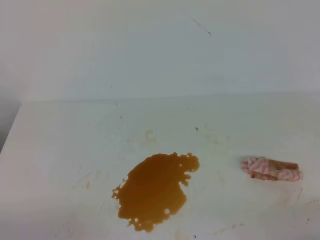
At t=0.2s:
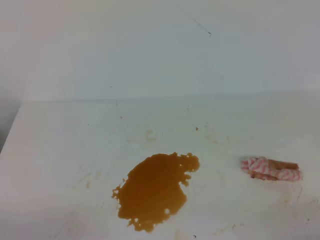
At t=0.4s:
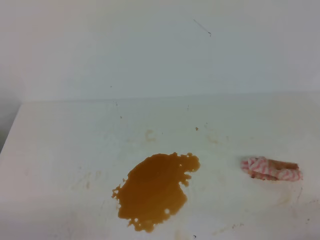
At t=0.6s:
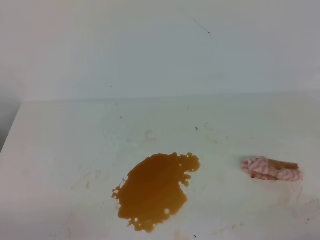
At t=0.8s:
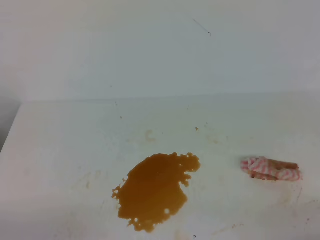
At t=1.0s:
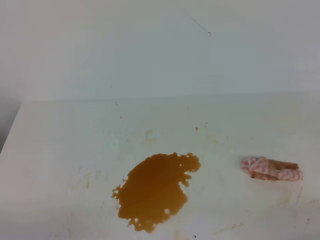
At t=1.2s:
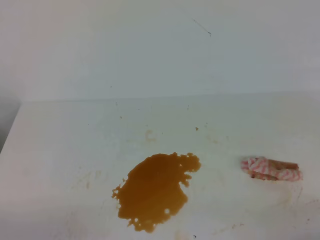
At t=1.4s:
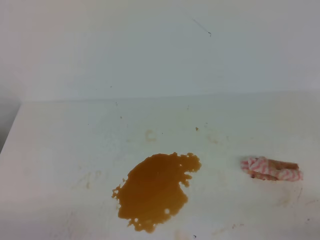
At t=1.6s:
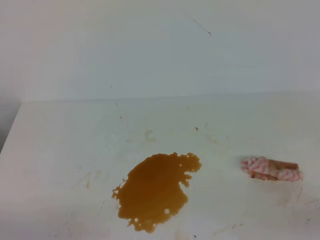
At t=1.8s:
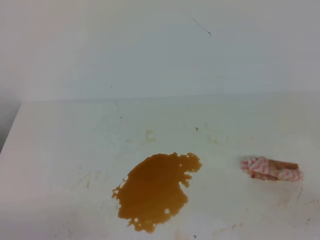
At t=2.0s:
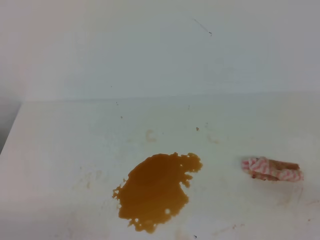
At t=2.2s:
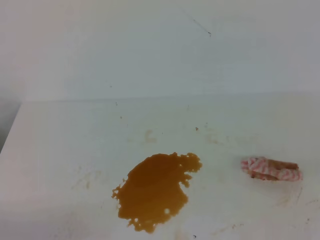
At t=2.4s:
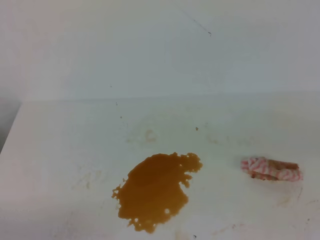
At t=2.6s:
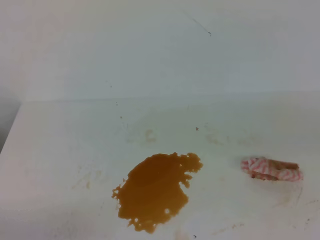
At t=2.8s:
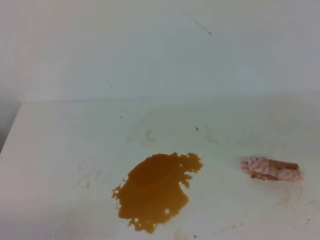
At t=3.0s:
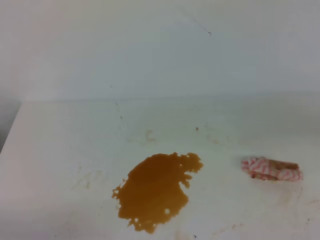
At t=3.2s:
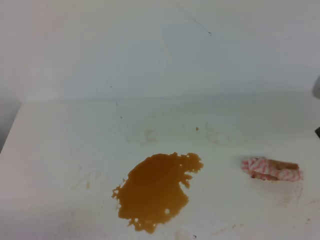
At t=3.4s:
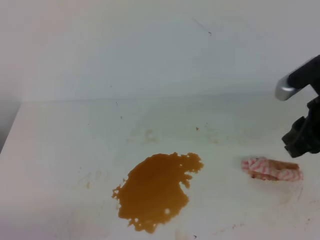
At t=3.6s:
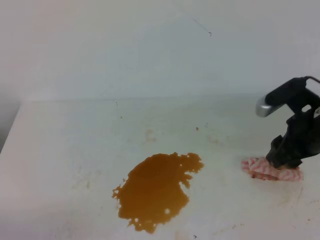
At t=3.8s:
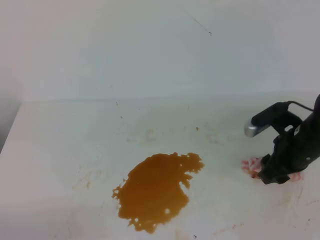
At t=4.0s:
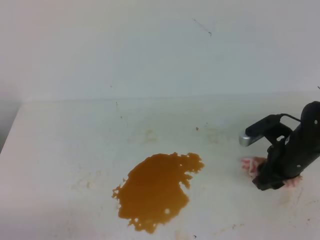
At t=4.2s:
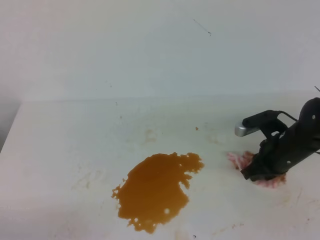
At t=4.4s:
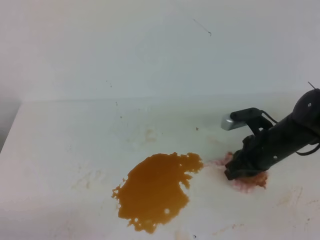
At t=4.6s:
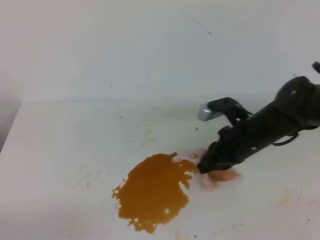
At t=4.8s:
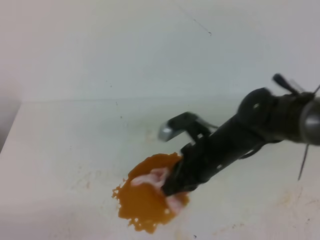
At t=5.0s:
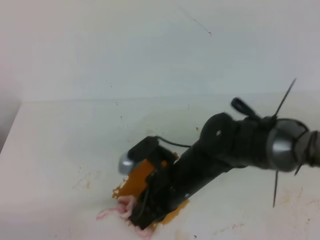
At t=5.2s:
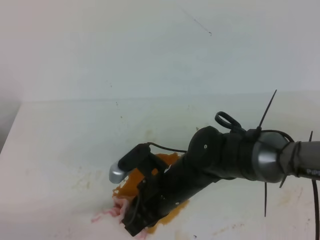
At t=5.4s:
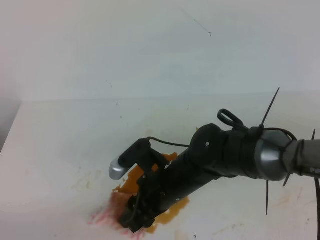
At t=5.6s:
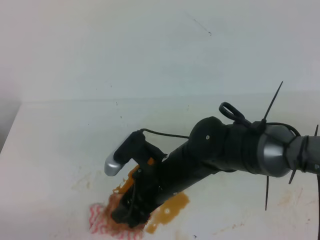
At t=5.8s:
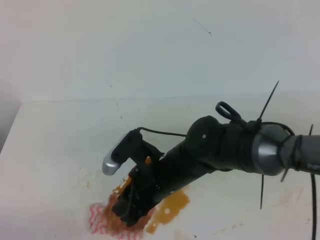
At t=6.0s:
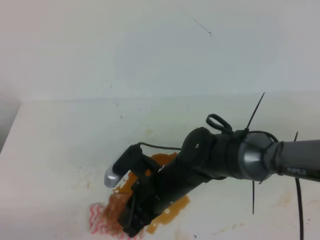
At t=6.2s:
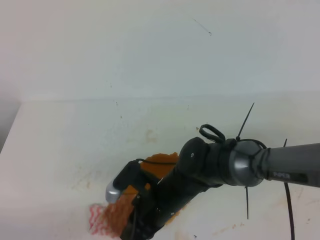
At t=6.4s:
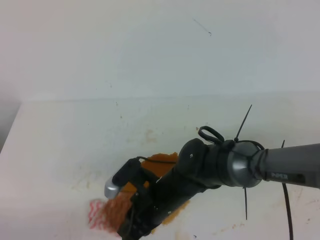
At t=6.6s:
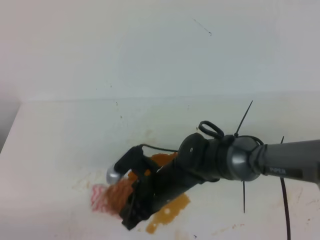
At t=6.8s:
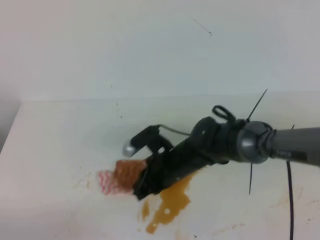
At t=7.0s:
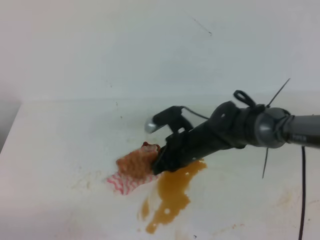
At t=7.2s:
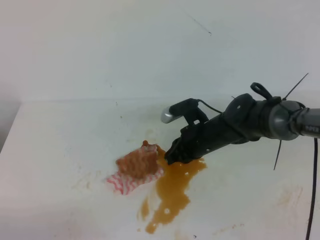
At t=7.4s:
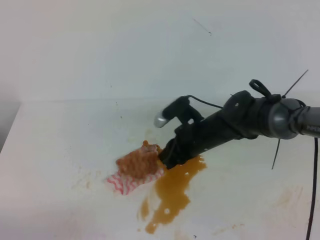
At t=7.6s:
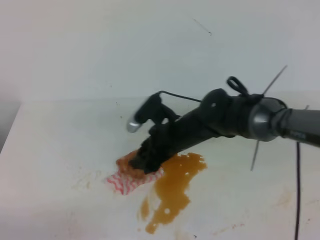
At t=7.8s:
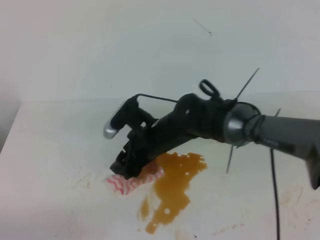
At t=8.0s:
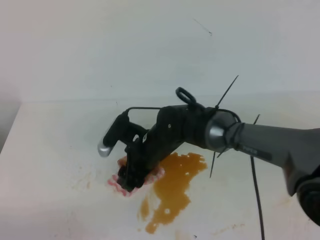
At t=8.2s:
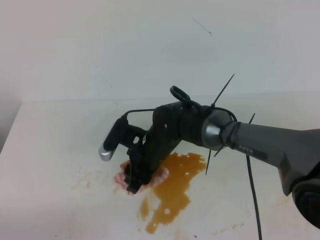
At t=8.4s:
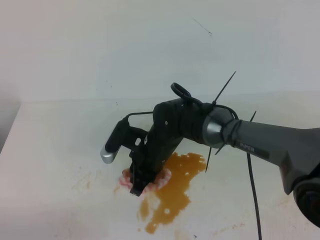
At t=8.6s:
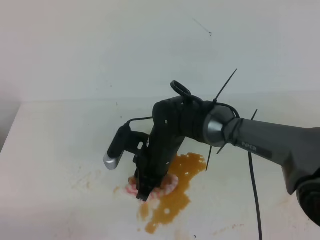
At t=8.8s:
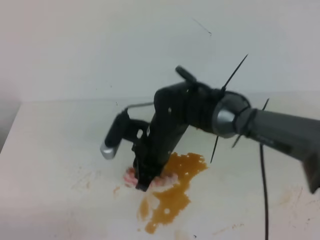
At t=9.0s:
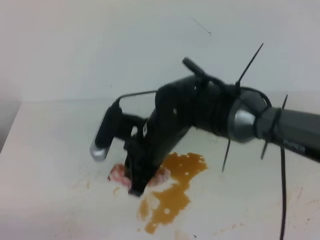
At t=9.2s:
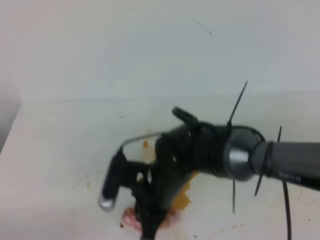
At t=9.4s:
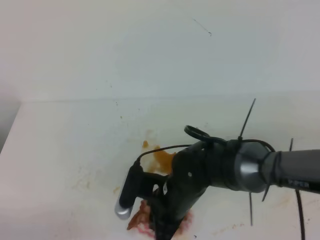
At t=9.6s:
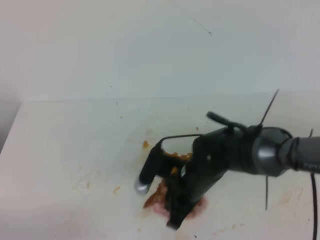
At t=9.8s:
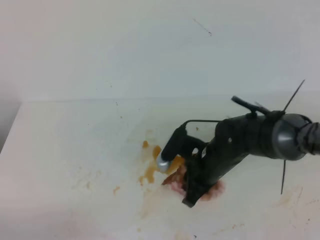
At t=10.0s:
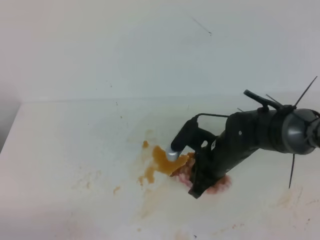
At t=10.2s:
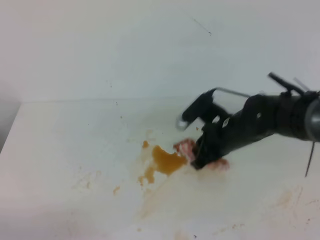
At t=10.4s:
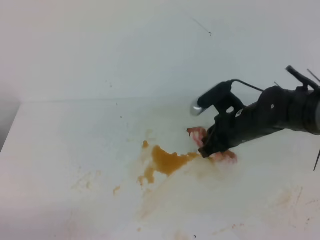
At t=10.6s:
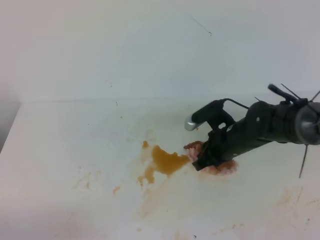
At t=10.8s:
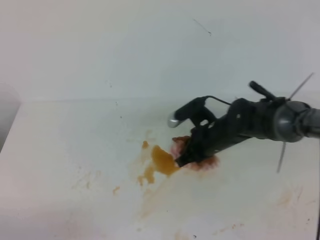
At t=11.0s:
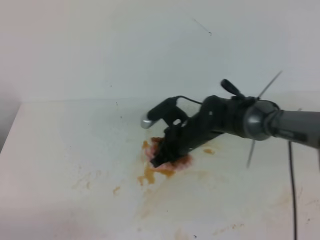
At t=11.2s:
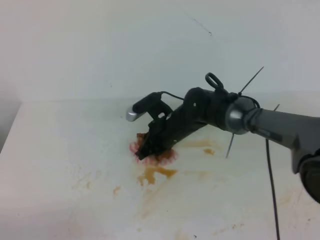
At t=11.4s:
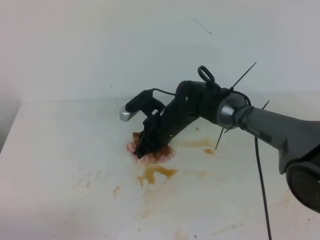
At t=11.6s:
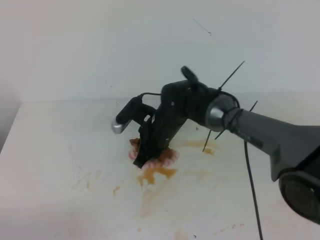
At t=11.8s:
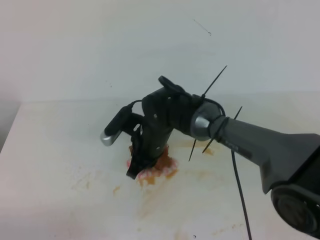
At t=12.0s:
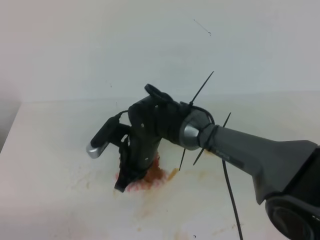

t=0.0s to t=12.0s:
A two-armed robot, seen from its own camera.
t=3.0s to t=4.4s: The right gripper heads downward, forward and to the left, covering roughly 30 cm, and opens, then closes again.
t=4.4s to t=6.0s: The right gripper is displaced to the left and backward by some 20 cm, and opens and closes again.
t=6.0s to t=7.6s: The right gripper moves forward, some 10 cm, and opens.
t=7.6s to t=9.0s: The right gripper heads backward and to the left, covering some 10 cm, and closes its fingers.
t=9.0s to t=10.4s: The right gripper shifts approximately 15 cm to the right.
t=10.4s to t=12.0s: The right gripper shifts about 15 cm to the left.

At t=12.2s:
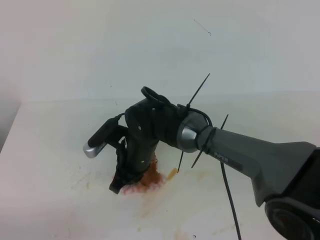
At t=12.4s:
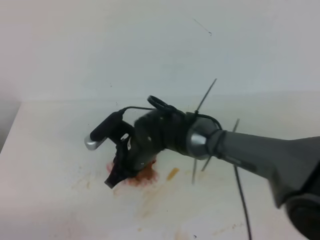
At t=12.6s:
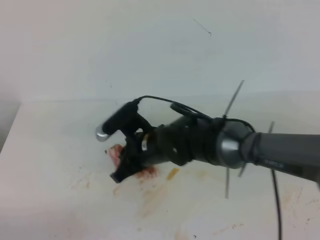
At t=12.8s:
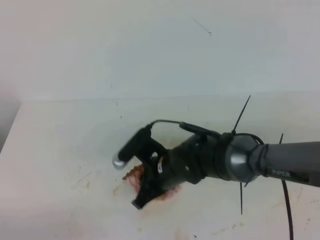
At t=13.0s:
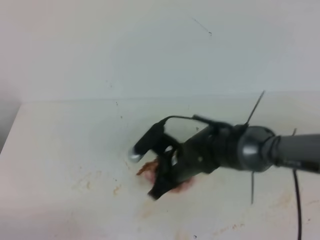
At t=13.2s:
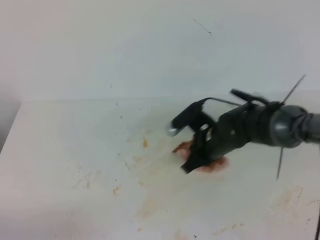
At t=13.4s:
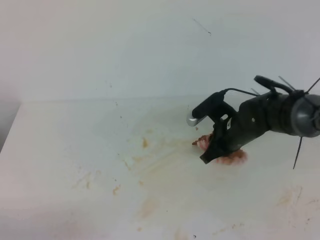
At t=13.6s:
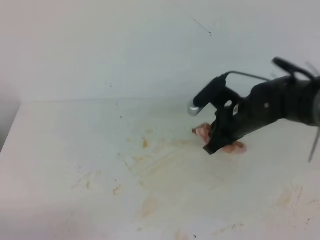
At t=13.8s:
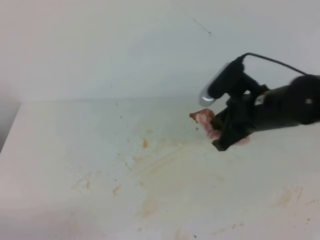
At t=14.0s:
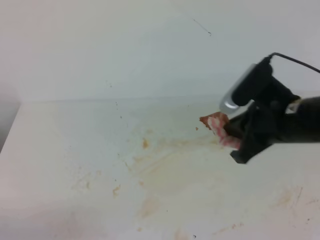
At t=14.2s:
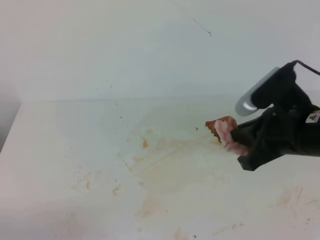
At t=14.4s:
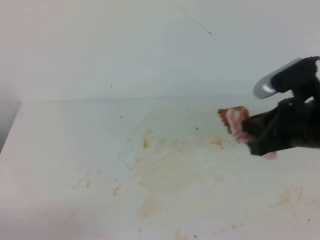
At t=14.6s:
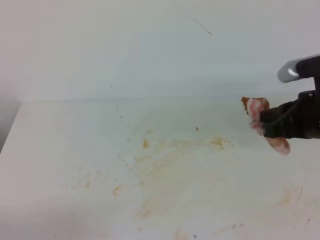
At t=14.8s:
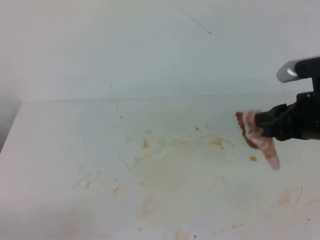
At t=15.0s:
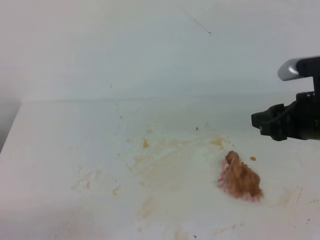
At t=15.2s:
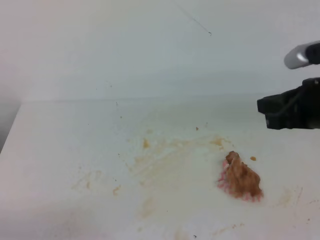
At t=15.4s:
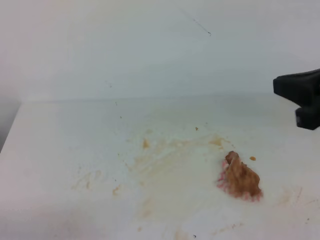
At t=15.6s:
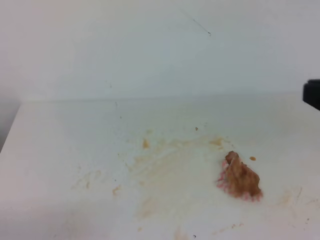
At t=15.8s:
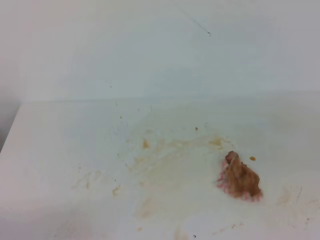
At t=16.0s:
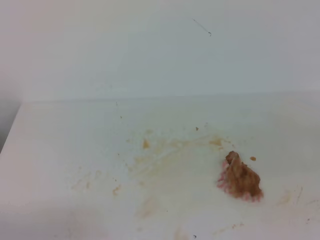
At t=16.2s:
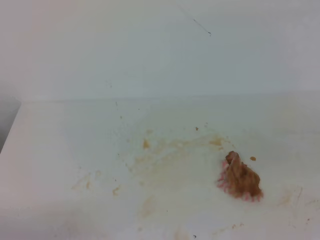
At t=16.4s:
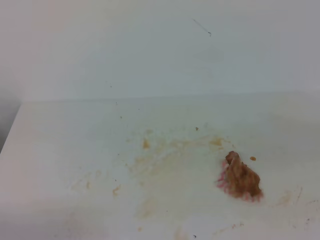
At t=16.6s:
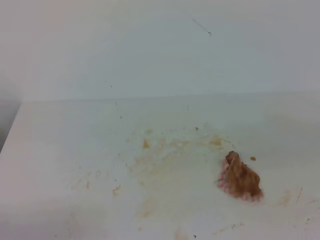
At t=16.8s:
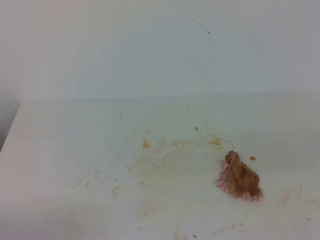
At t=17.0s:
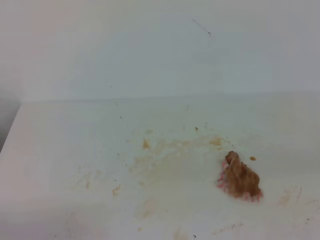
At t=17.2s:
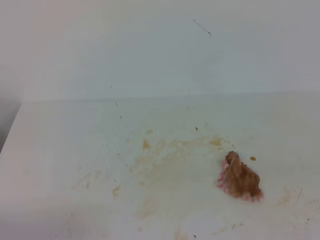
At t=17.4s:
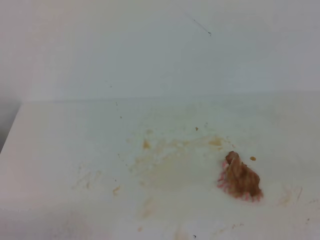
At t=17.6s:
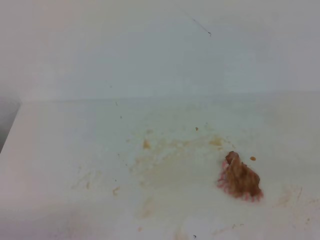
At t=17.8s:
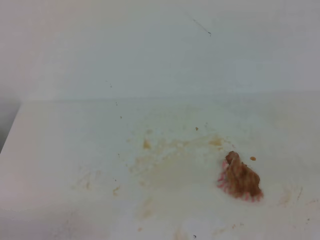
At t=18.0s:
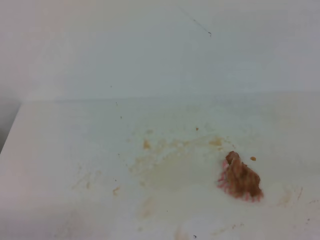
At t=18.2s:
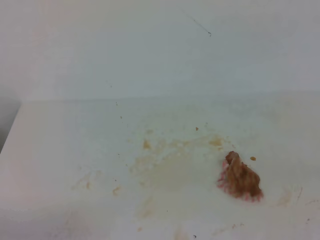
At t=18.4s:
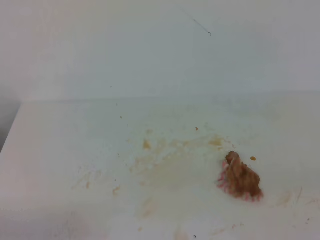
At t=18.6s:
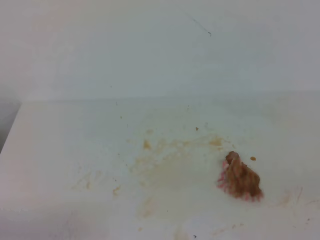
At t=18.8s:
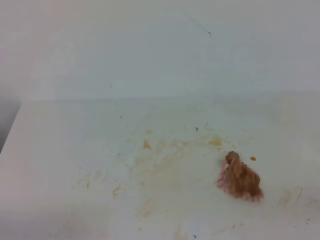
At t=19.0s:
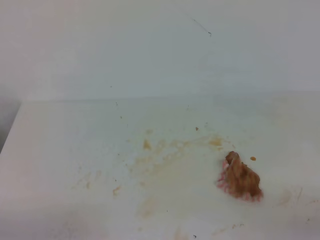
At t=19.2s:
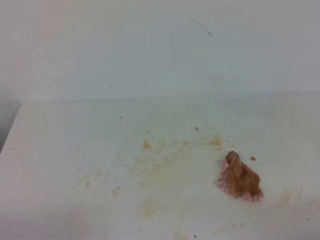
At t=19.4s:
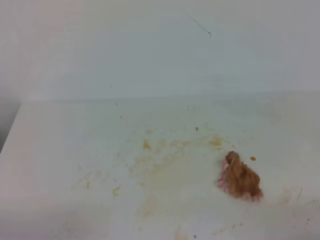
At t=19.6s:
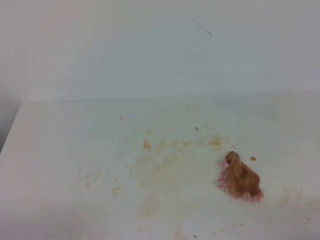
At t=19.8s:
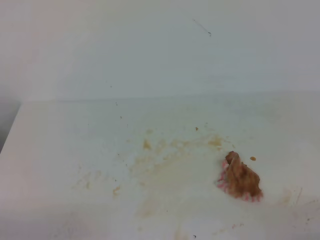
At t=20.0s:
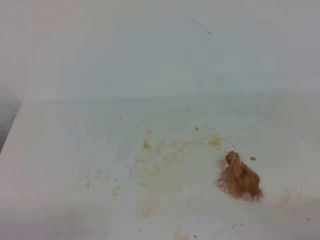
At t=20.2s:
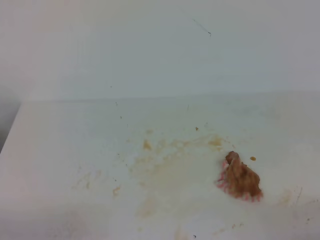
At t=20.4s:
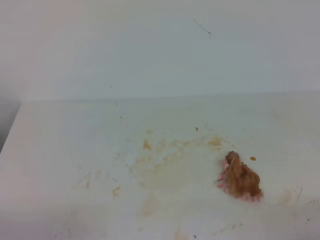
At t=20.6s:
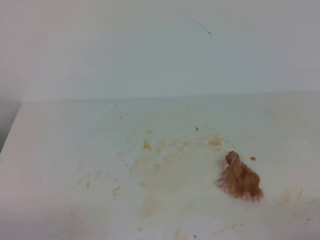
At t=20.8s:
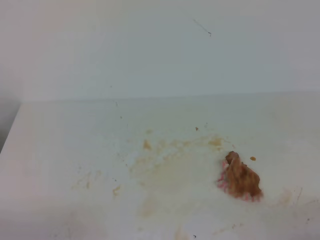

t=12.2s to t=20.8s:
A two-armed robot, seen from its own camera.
t=12.2s to t=13.6s: The right gripper goes approximately 20 cm to the right.
t=13.6s to t=15.0s: The right gripper travels to the right, backward and upward by some 15 cm, and opens up.
t=15.0s to t=16.6s: The right gripper shifts approximately 20 cm backward and to the right, and closes up.
t=19.4s to t=20.8s: The two grippers keep their place.
